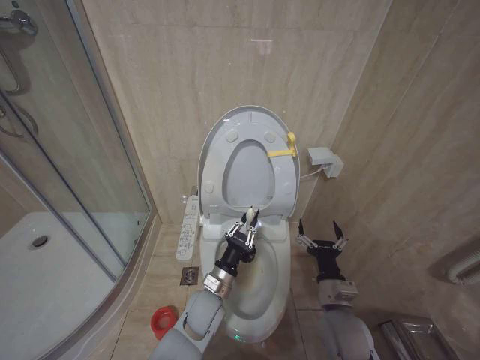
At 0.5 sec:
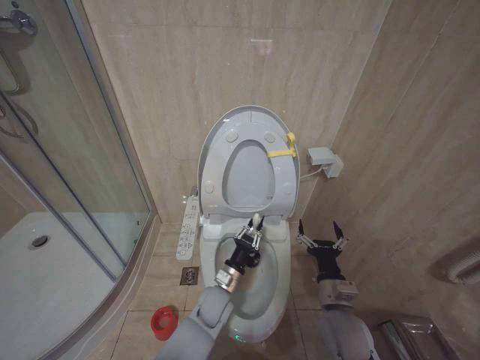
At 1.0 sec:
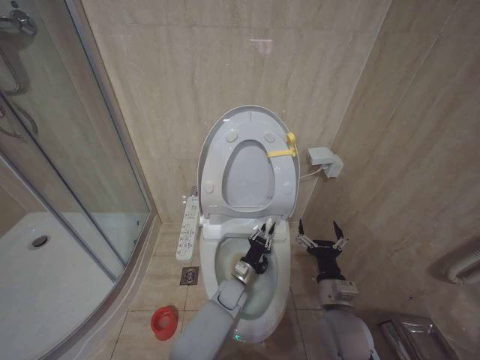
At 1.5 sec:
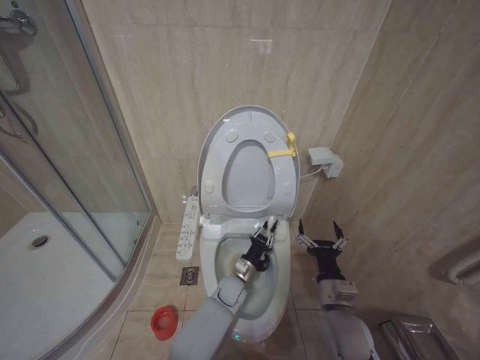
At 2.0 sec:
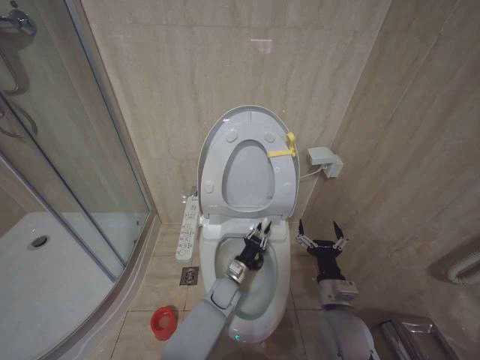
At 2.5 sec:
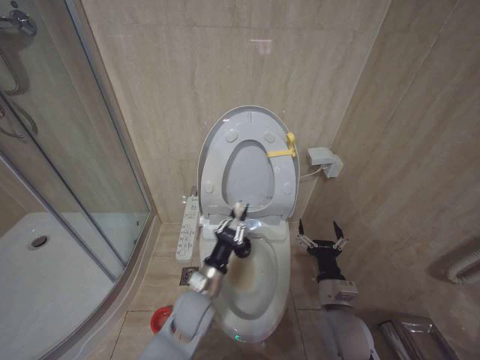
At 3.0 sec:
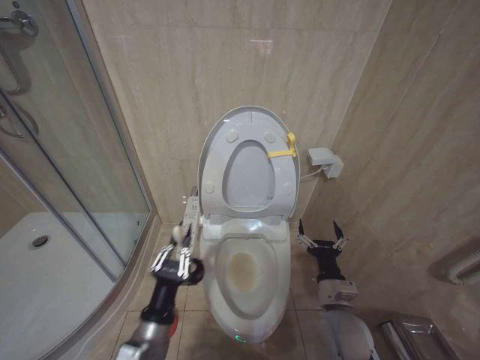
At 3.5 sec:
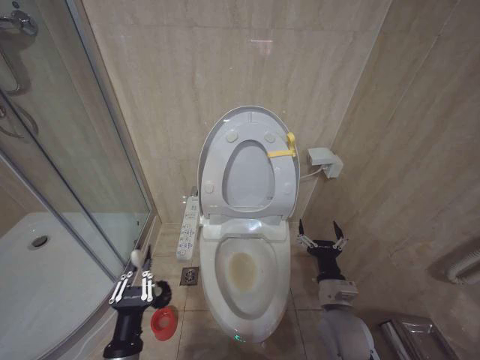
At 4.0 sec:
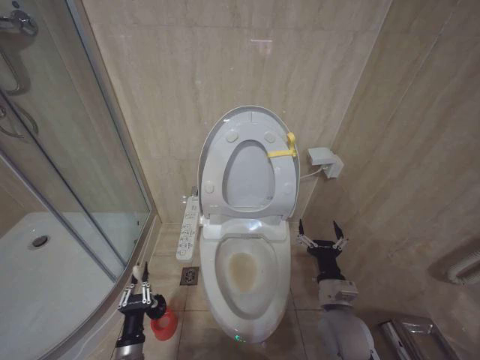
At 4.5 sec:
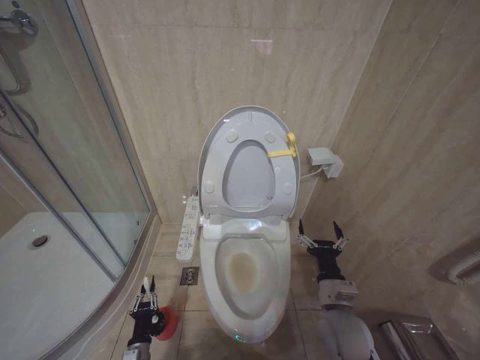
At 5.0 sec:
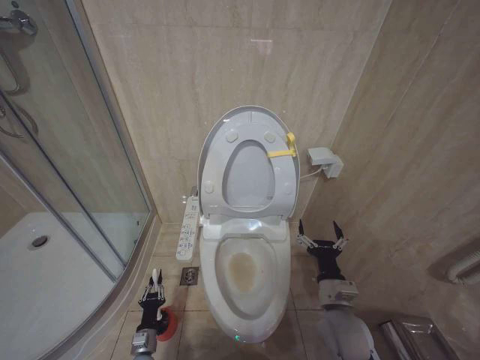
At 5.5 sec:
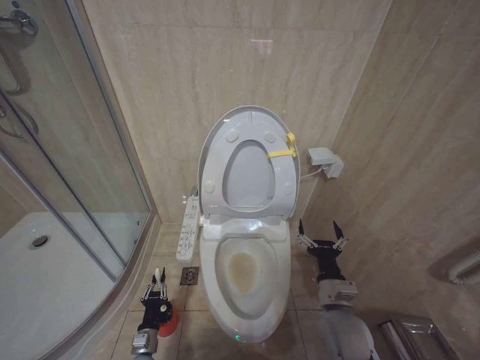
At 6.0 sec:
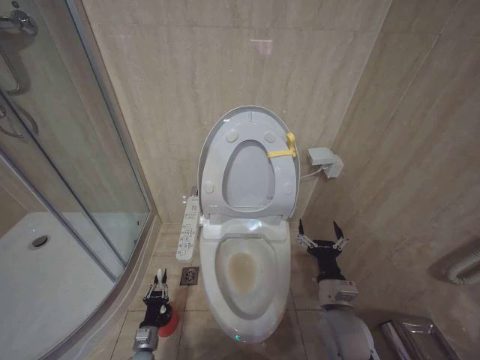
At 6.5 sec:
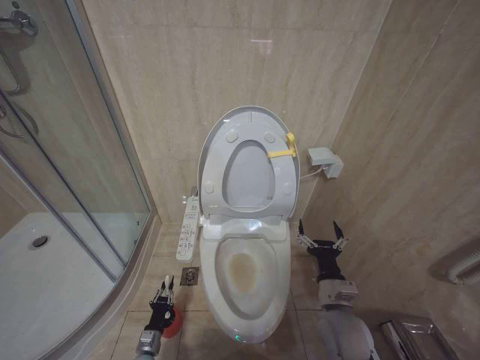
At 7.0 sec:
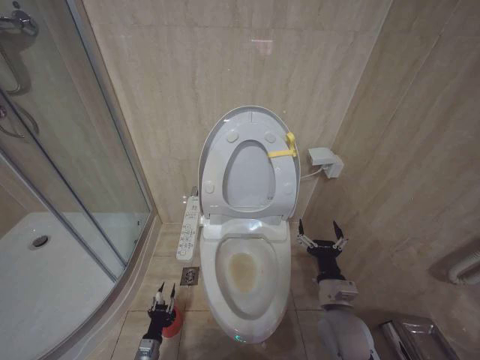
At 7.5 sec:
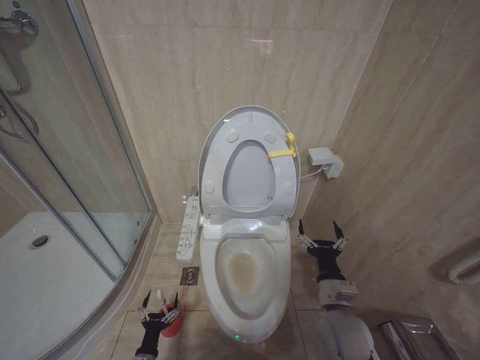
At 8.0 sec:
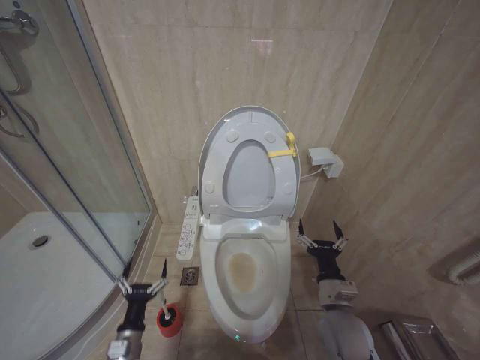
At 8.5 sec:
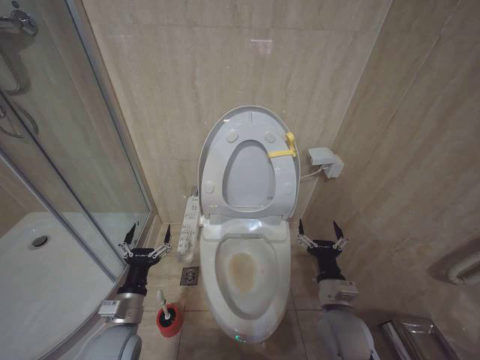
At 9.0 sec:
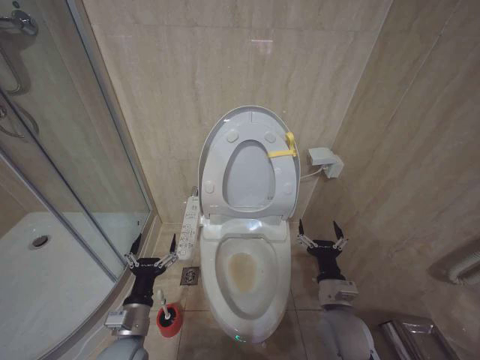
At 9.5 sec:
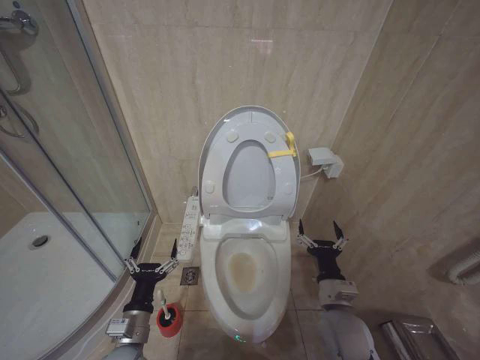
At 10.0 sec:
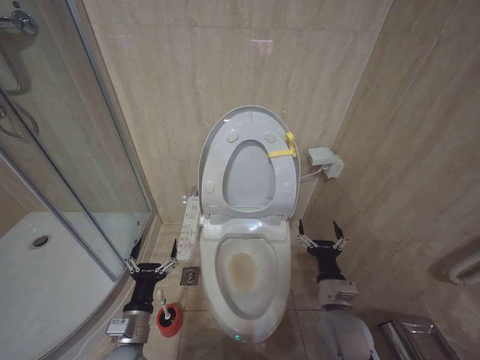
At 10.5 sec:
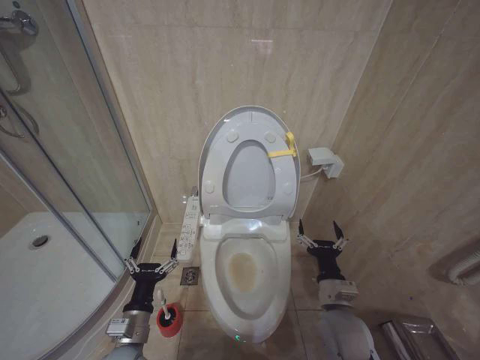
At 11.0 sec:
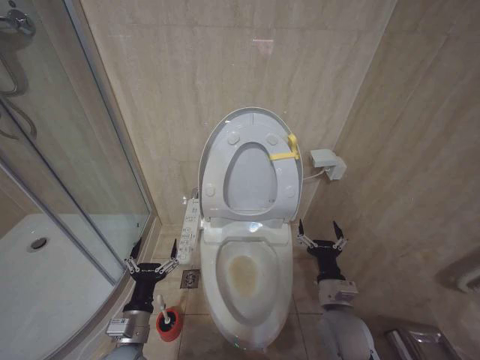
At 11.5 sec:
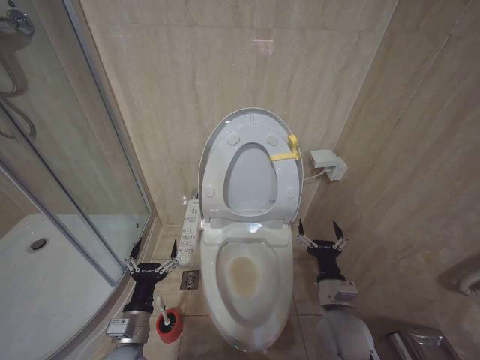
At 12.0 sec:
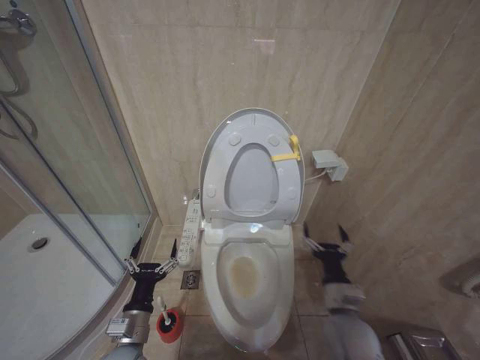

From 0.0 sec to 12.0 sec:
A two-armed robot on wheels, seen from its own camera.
Task of the whole recording: Open the toilet lid, clean the toilet bowl with a toilet brush, close the toilet lid, and flush.
From 0.0 sec to 2.0 sec: The left gripper goes some 15 cm downward, forward and to the right.
From 2.0 sec to 4.0 sec: The left gripper travels to the left and backward by about 35 cm.
From 4.0 sec to 6.0 sec: The left gripper heads downward and forward, covering approximately 15 cm.
From 6.0 sec to 8.0 sec: The left gripper goes roughly 15 cm upward and backward, and opens.
From 8.0 sec to 10.0 sec: The left gripper goes approximately 15 cm upward.
From 10.0 sec to 12.0 sec: Neither gripper changes place.

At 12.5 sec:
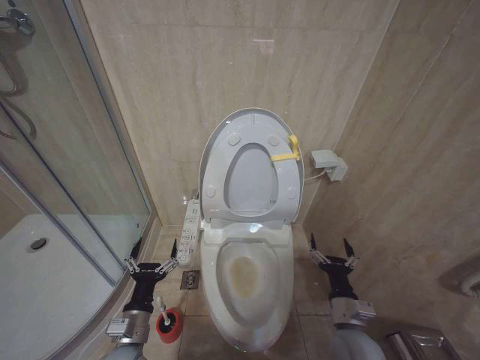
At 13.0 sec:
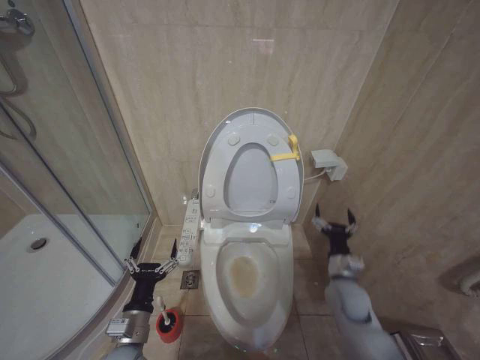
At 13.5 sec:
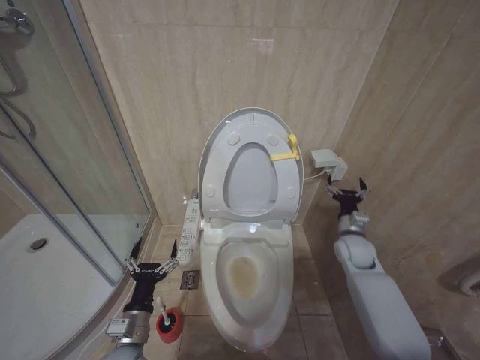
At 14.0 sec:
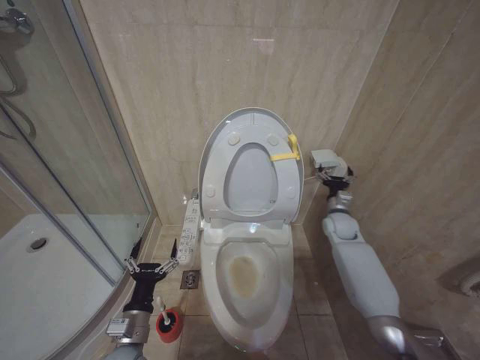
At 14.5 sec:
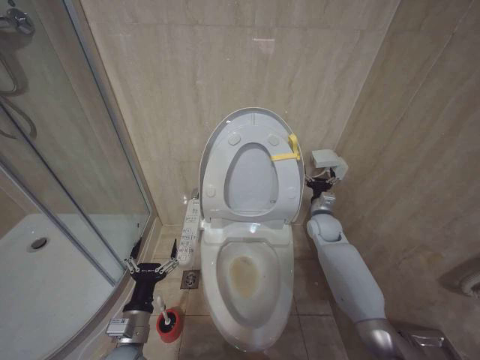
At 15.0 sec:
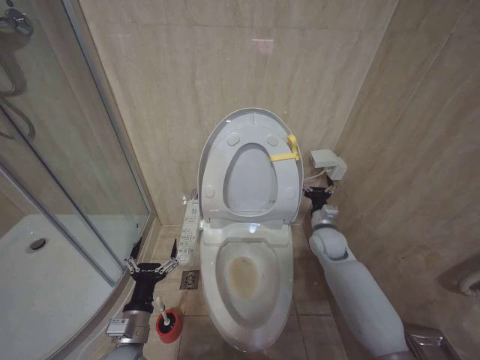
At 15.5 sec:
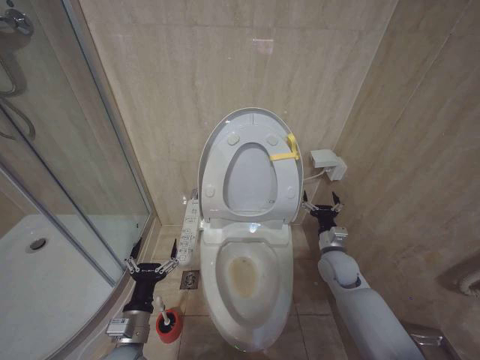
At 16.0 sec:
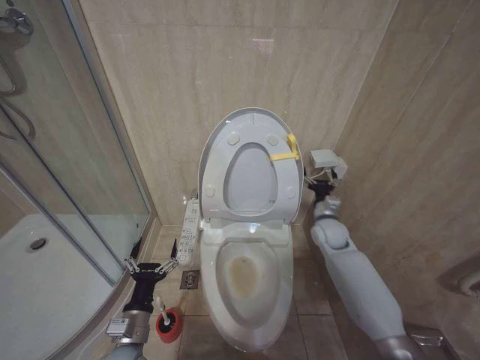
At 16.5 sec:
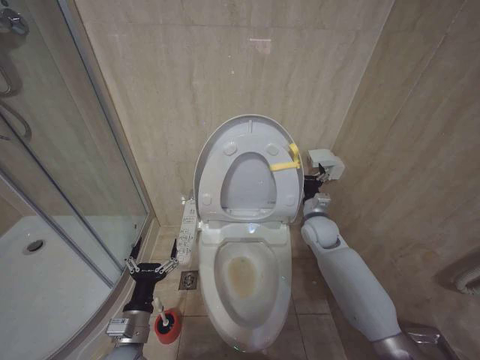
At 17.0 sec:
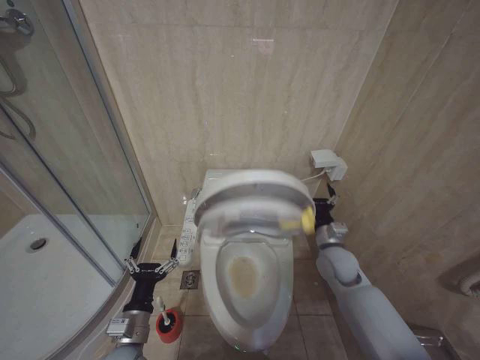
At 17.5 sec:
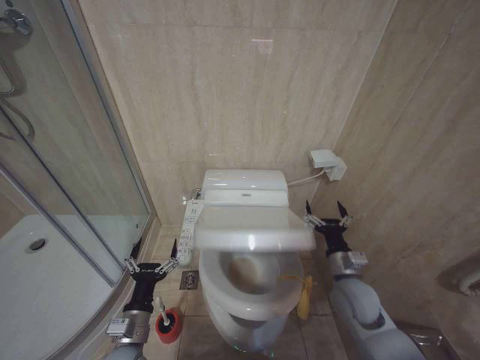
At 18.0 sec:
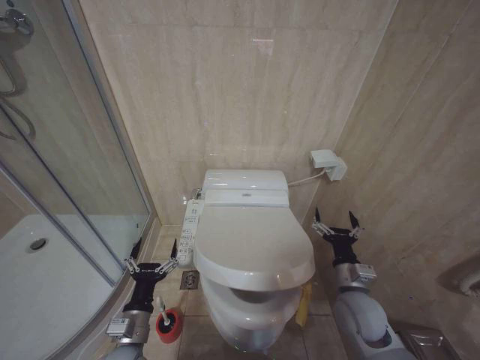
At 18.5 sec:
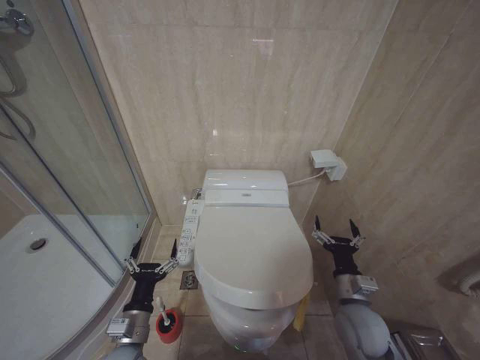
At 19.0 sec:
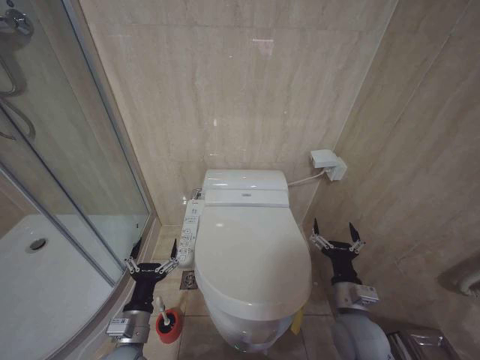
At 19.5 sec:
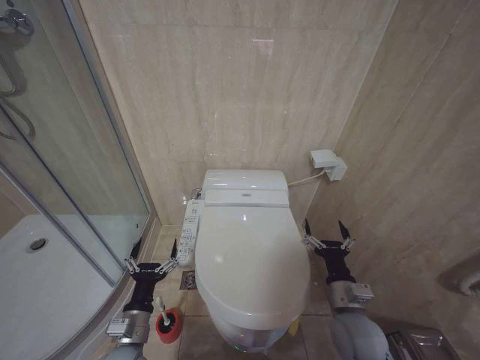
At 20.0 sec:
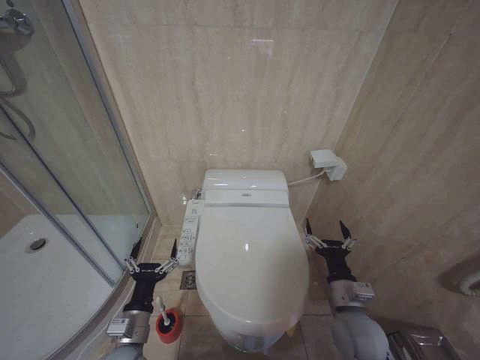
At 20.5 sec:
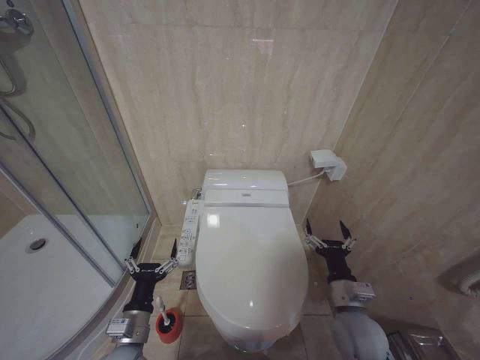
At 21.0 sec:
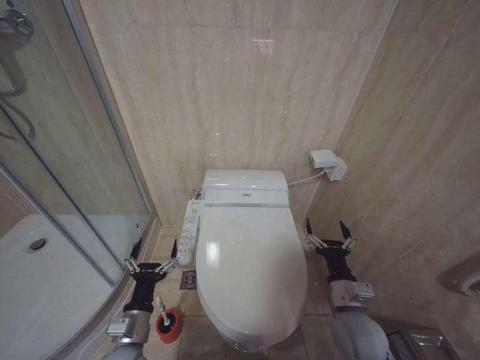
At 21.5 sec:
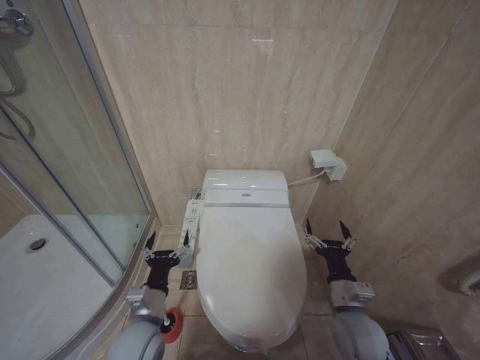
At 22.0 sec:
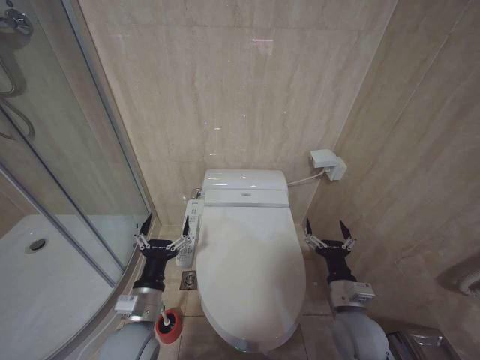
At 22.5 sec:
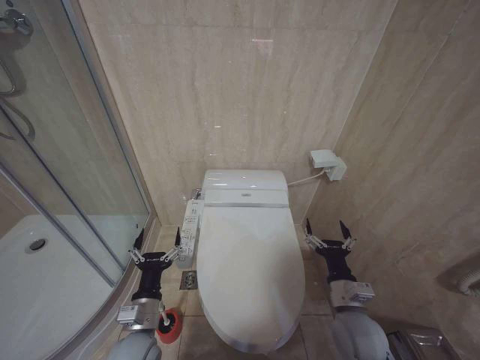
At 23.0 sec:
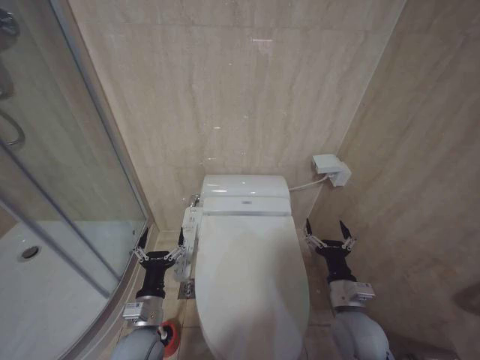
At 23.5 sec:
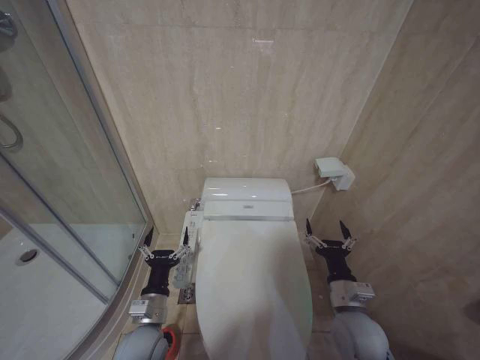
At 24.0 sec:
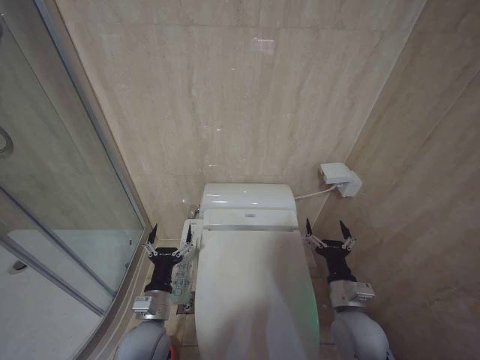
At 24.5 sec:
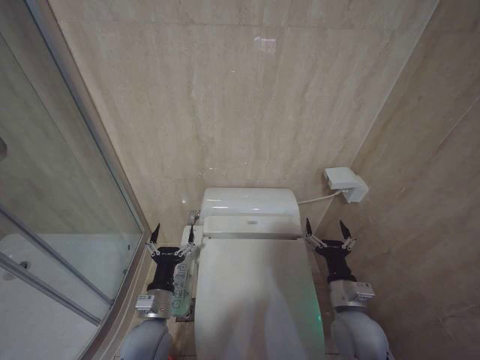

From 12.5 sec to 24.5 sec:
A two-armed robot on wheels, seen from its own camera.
Task of the whole recording: Open the toilet lid, clean the toilet bowl with a toilet brush, close the toilet lid, and flush.
From 12.5 sec to 14.5 sec: The right gripper travels forward by roughly 30 cm.
From 14.5 sec to 16.5 sec: The right gripper goes backward and returns, roughly 10 cm each way.
From 16.5 sec to 18.5 sec: The right gripper is displaced backward by approximately 20 cm.
From 18.5 sec to 20.5 sec: There are only small adjustments of the grippers.
From 22.5 sec to 24.5 sec: There are only small adjustments of the grippers.

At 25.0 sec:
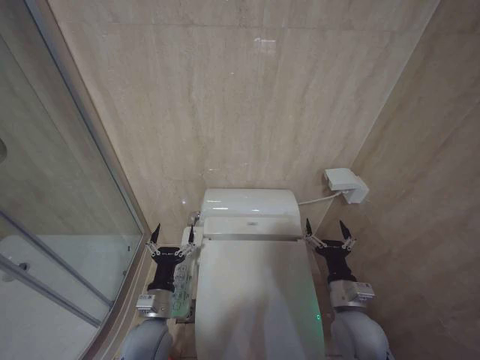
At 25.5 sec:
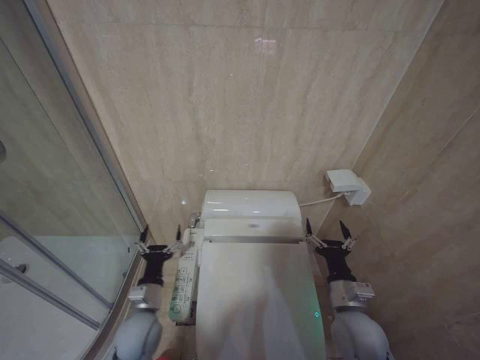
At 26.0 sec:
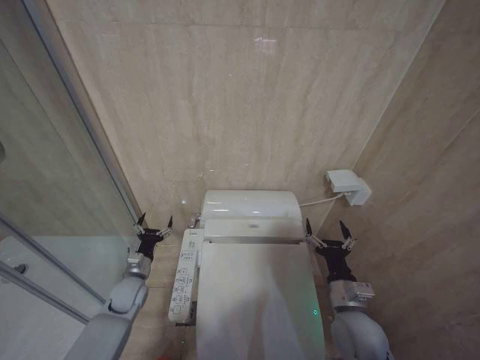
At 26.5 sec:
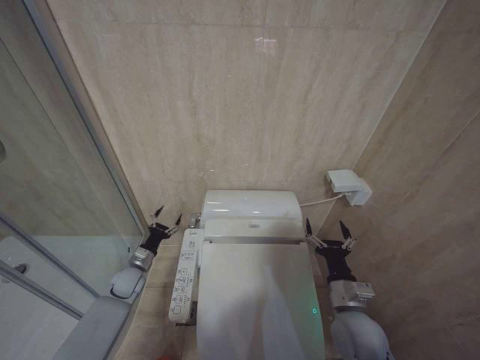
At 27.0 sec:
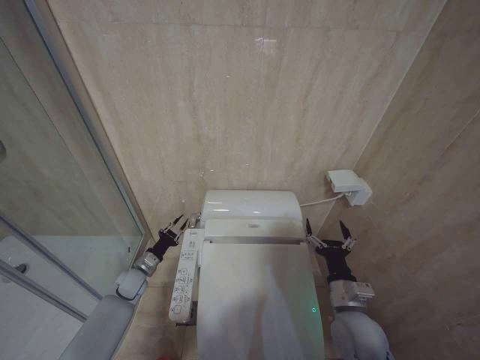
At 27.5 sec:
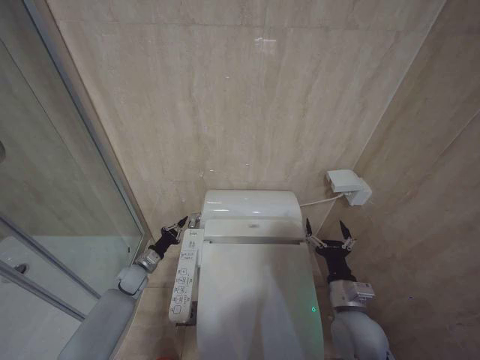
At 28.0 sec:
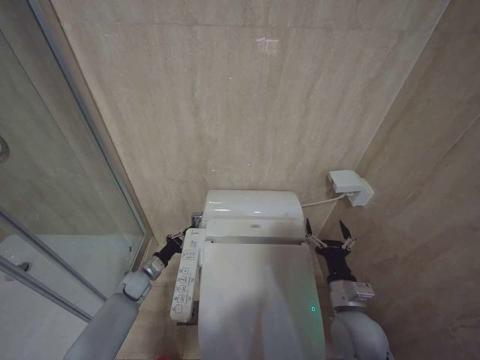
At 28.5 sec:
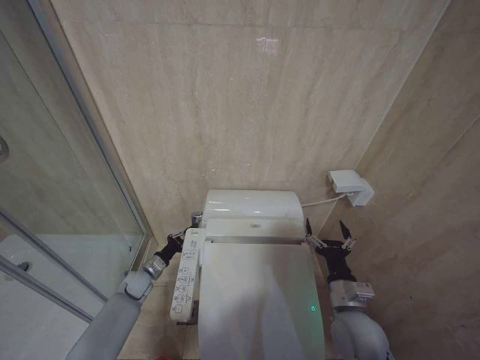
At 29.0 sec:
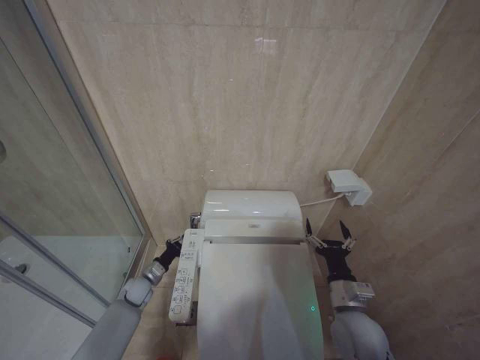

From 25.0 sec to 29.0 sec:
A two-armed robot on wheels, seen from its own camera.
Task of the whole recording: Open the toilet lid, clean the toilet bowl with a toilet brush, close the toilet lid, and flush.
From 25.0 sec to 27.0 sec: The left gripper moves forward, to the left and downward, roughly 25 cm, and closes up.
From 27.0 sec to 29.0 sec: The left gripper closes its fingers.
